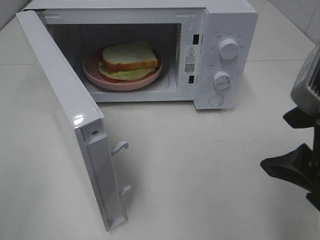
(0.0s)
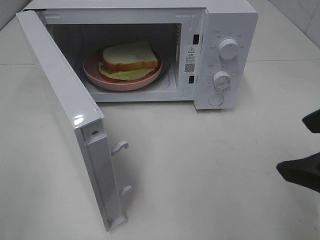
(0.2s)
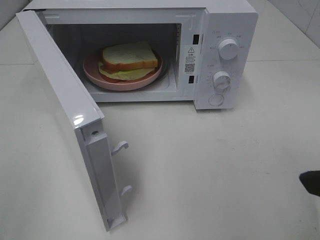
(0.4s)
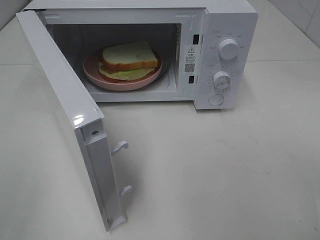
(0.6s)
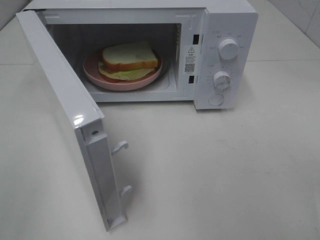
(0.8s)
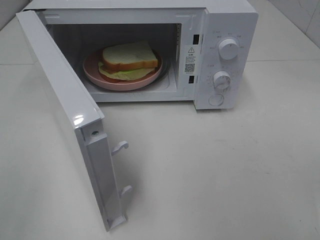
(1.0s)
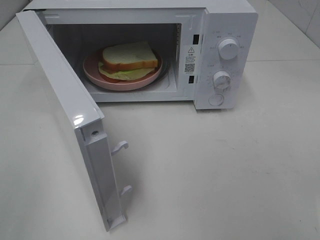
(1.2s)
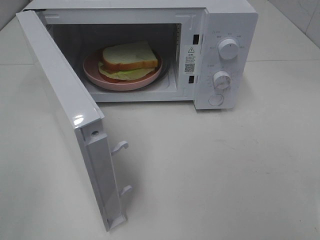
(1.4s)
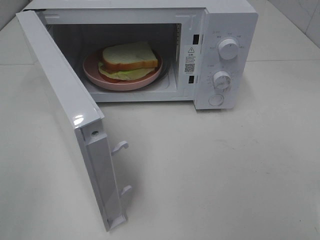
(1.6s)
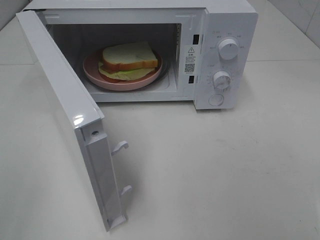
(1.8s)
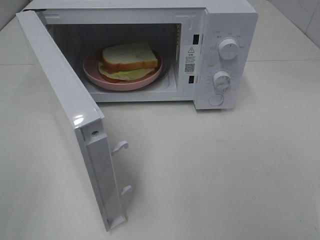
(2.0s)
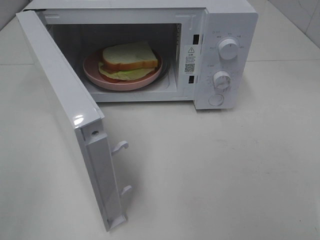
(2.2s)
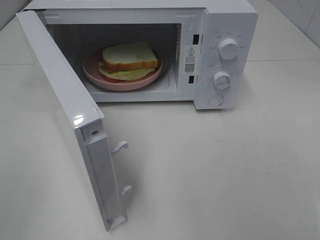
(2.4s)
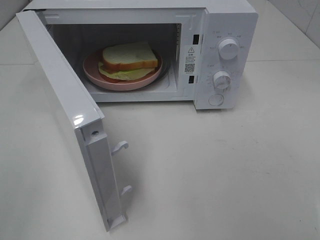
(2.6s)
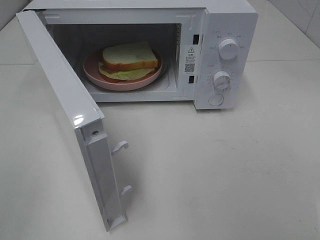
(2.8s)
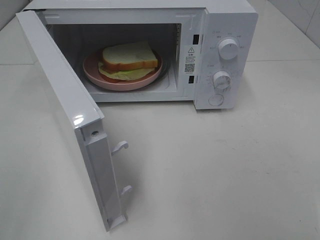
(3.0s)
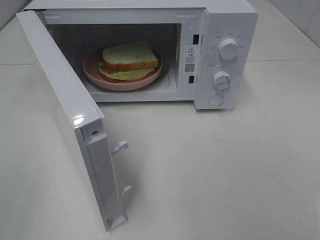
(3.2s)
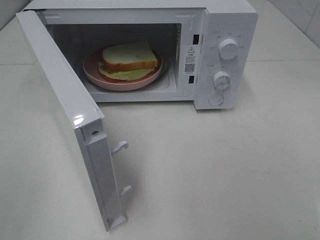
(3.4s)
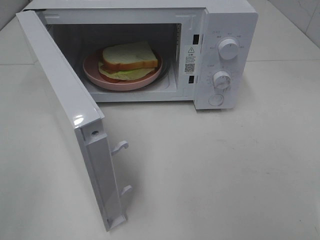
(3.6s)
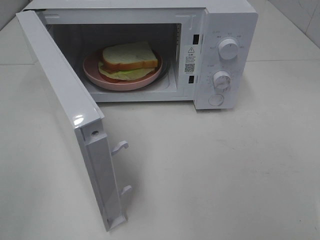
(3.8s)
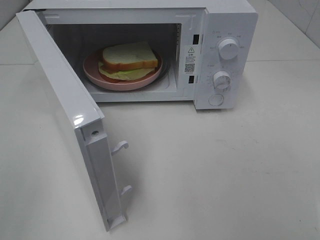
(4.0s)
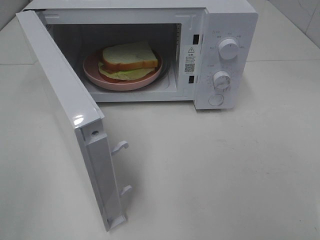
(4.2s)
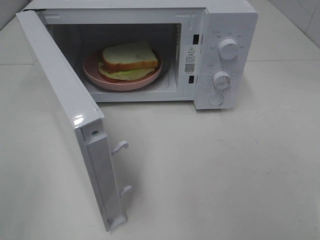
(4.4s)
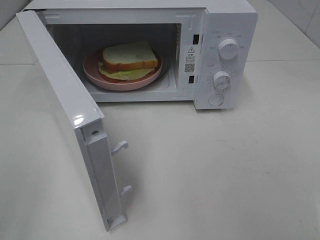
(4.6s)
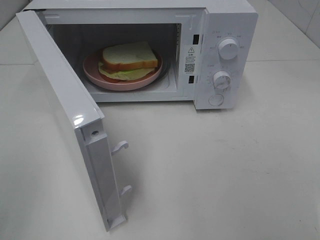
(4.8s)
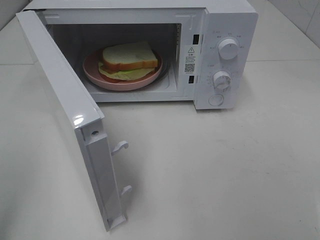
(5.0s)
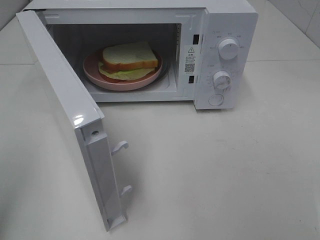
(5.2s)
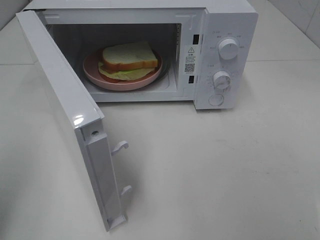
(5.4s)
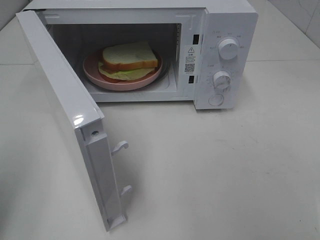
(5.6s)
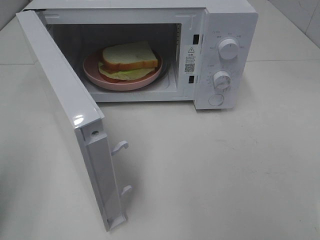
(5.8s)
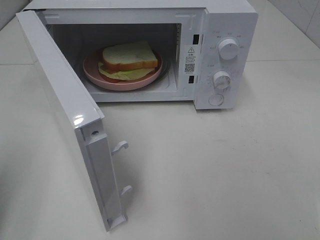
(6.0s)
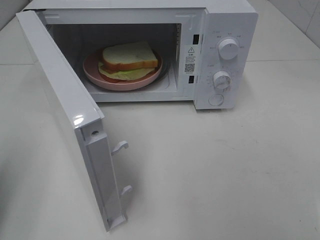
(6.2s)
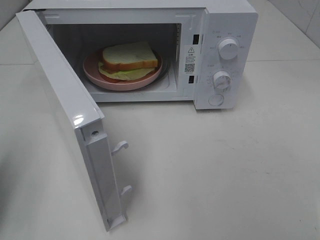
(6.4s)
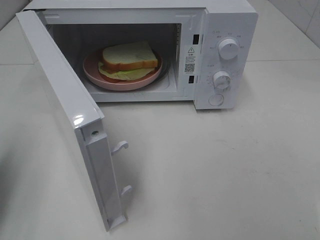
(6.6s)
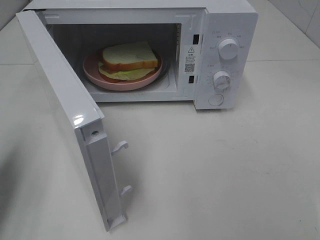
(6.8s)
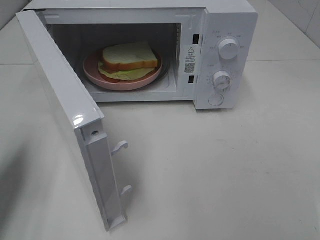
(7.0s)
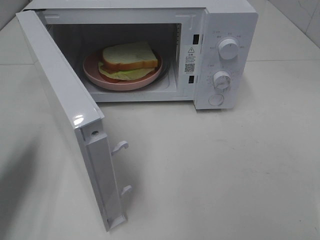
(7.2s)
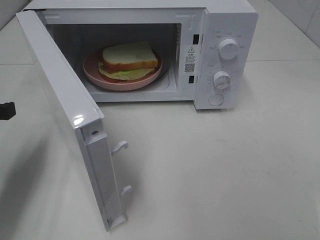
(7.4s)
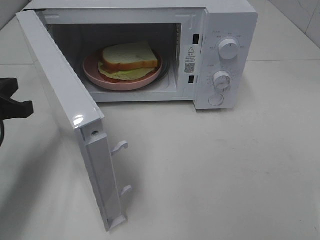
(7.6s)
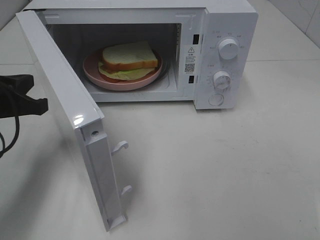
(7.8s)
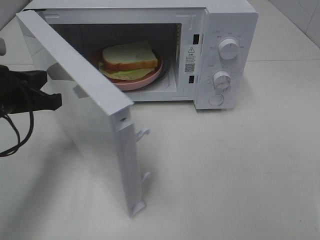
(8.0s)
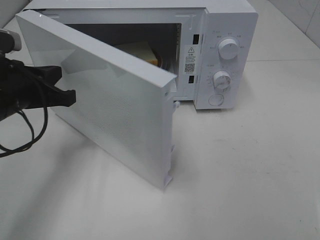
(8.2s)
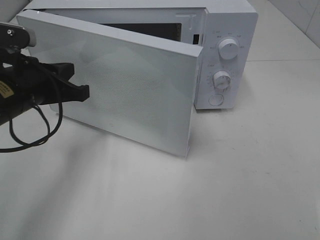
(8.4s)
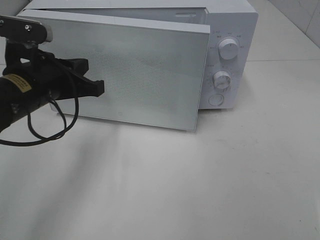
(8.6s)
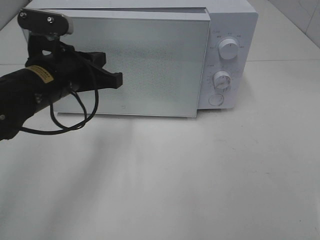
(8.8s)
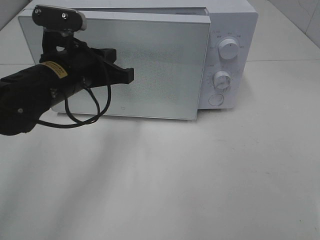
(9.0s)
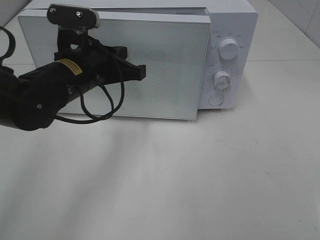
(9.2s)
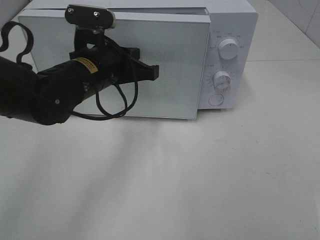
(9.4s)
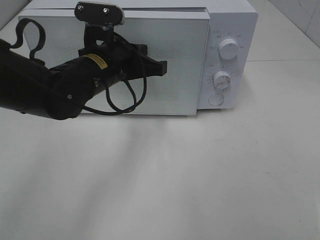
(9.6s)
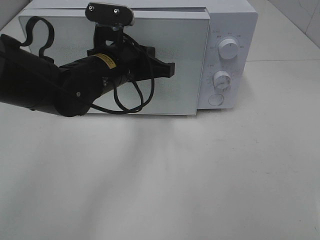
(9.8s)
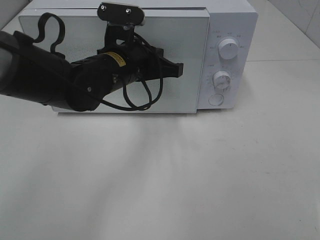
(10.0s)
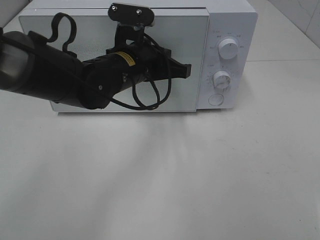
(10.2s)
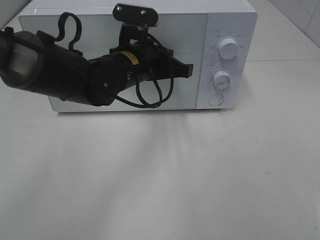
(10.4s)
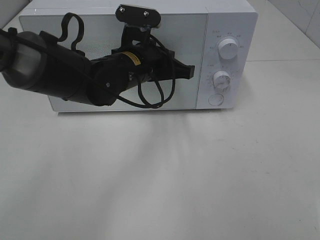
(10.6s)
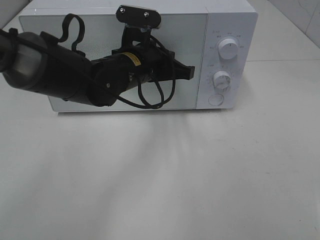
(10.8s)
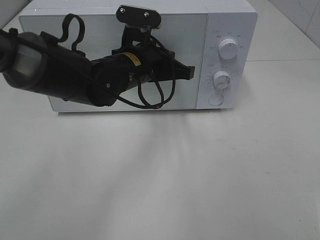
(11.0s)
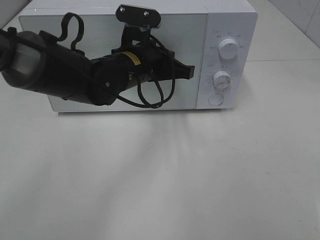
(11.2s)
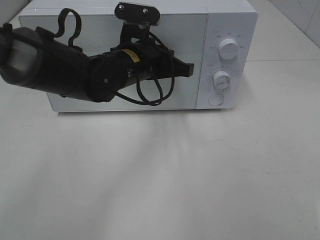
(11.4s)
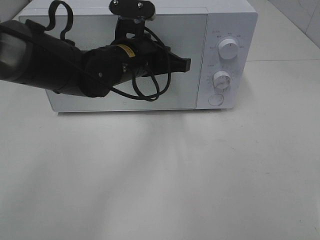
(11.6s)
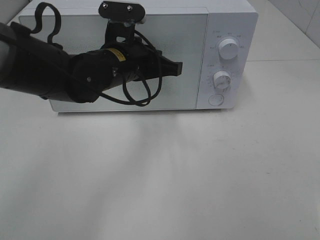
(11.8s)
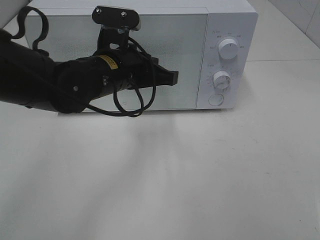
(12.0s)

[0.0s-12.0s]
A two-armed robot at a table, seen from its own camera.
Task of the whole recording: Heat Sandwich.
Step, 0.0s to 11.8s: Left hand: close the microwave door.
0.0s to 1.6s: The right gripper heads backward and to the right, covering about 15 cm.
3.0s to 4.4s: Both grippers stay about where they are.
6.0s to 7.6s: The left gripper is displaced forward, to the right and downward by about 15 cm.
7.6s to 9.0s: The left gripper goes about 15 cm to the right and forward.
9.0s to 10.4s: The left gripper is displaced to the right by approximately 10 cm.
10.4s to 12.0s: The grippers move only a little.

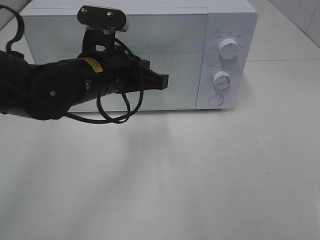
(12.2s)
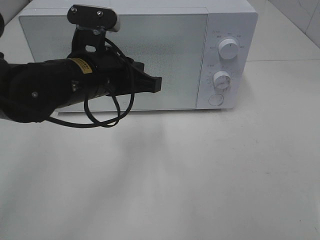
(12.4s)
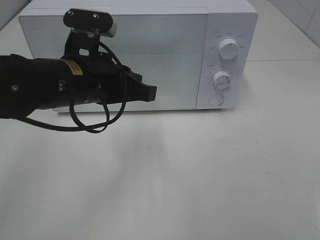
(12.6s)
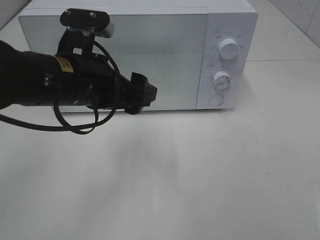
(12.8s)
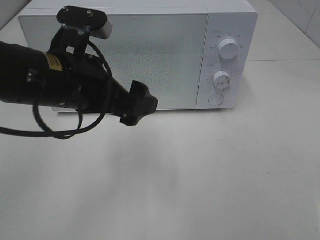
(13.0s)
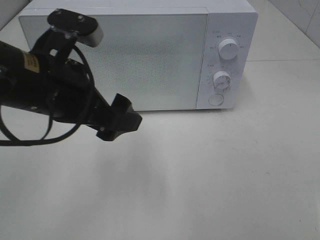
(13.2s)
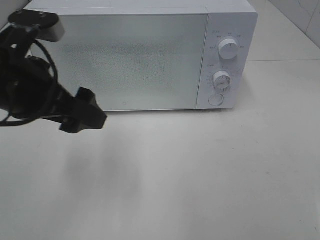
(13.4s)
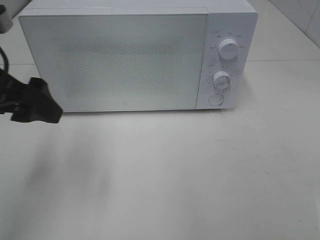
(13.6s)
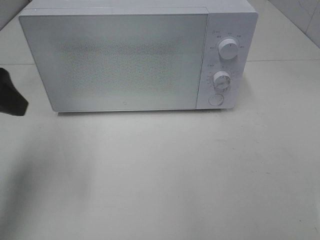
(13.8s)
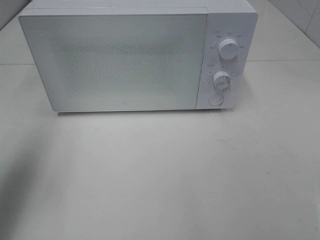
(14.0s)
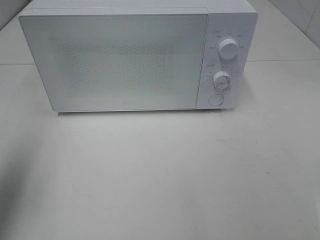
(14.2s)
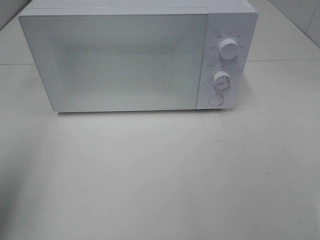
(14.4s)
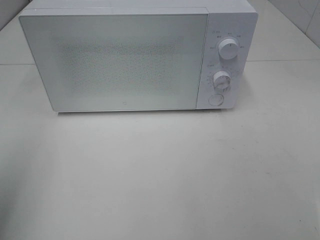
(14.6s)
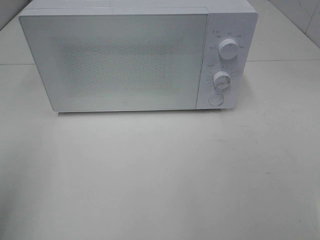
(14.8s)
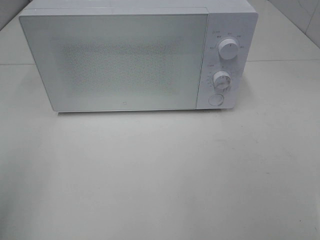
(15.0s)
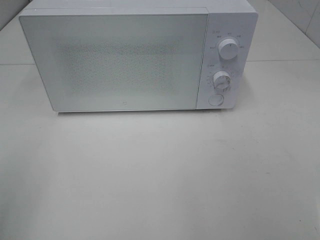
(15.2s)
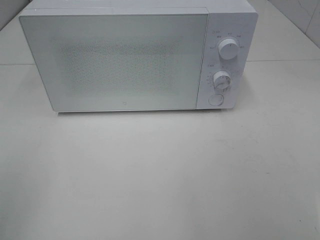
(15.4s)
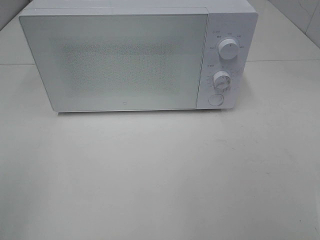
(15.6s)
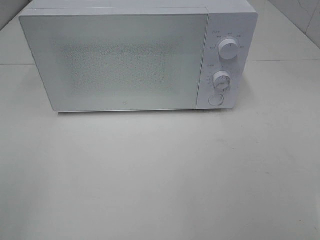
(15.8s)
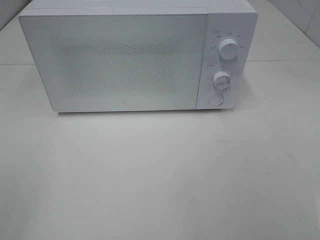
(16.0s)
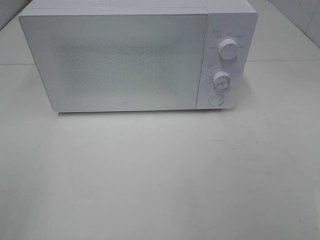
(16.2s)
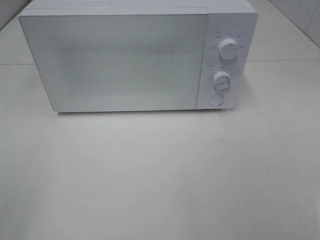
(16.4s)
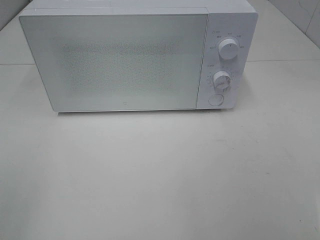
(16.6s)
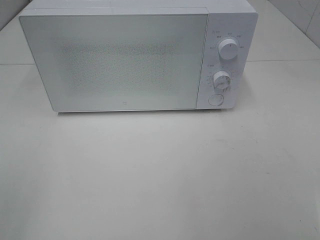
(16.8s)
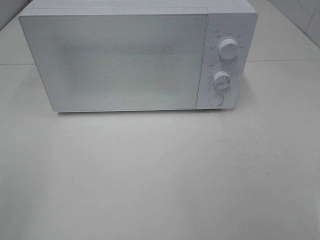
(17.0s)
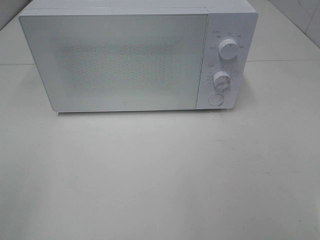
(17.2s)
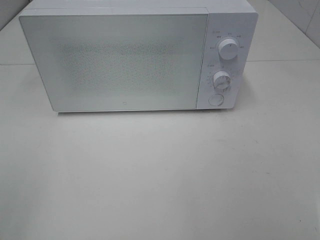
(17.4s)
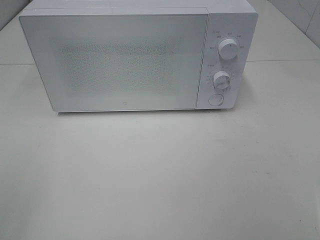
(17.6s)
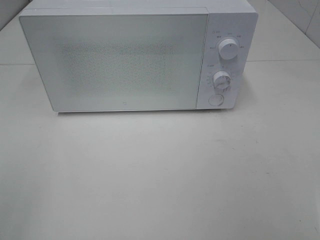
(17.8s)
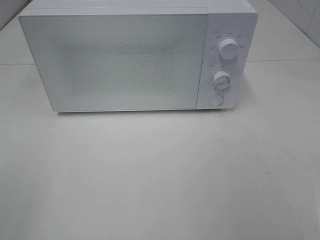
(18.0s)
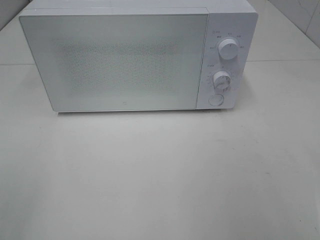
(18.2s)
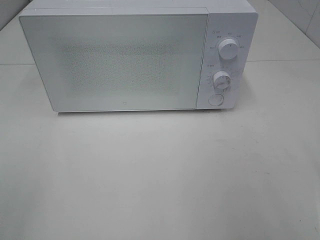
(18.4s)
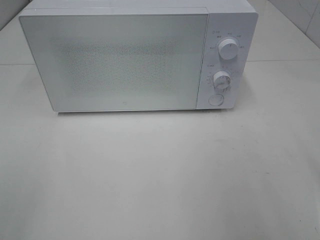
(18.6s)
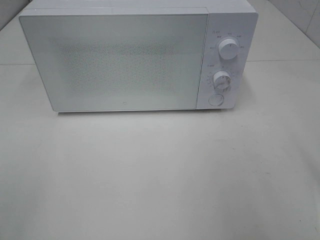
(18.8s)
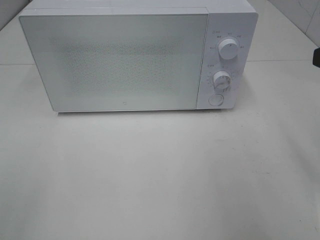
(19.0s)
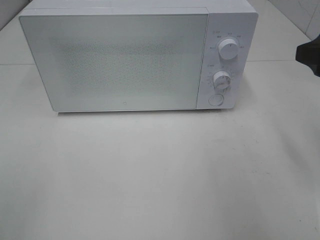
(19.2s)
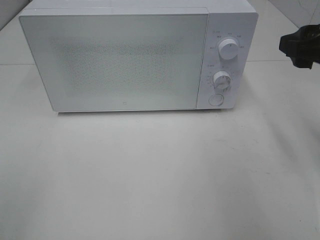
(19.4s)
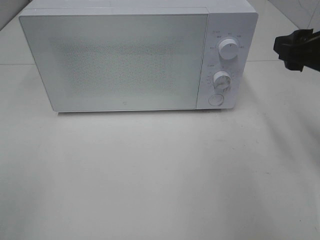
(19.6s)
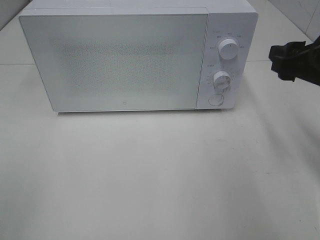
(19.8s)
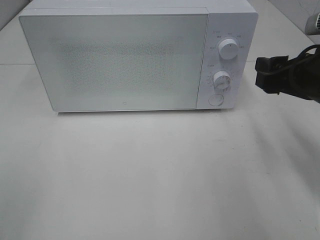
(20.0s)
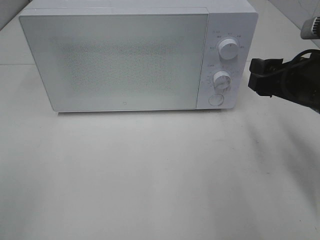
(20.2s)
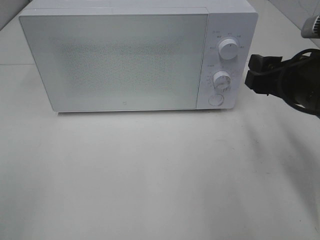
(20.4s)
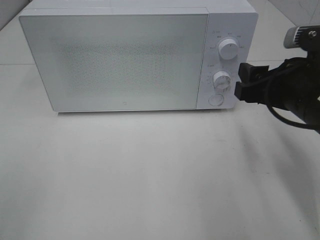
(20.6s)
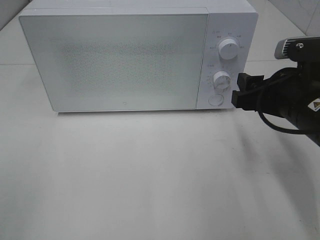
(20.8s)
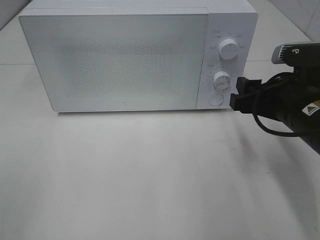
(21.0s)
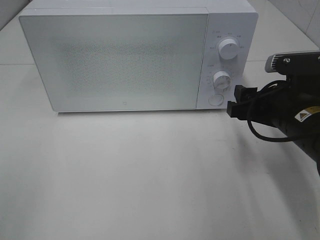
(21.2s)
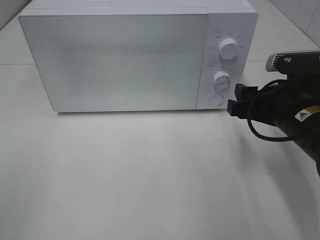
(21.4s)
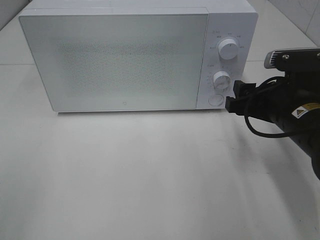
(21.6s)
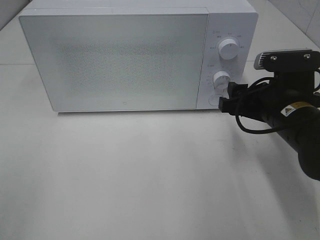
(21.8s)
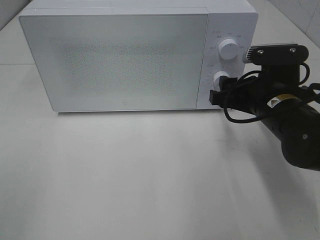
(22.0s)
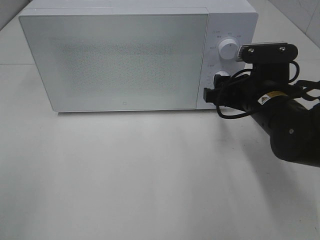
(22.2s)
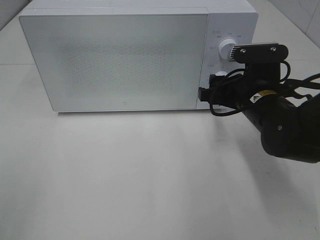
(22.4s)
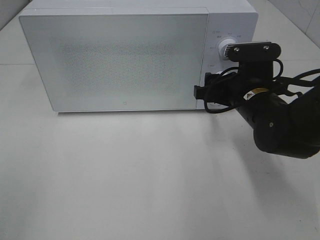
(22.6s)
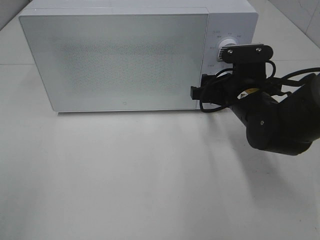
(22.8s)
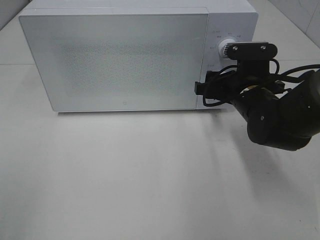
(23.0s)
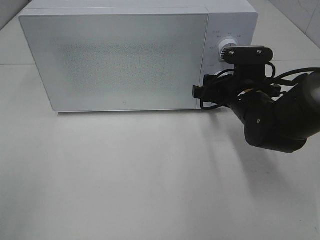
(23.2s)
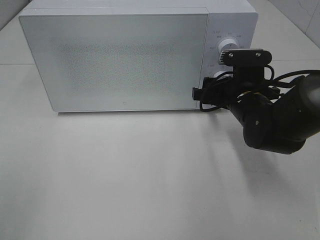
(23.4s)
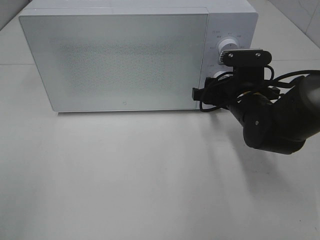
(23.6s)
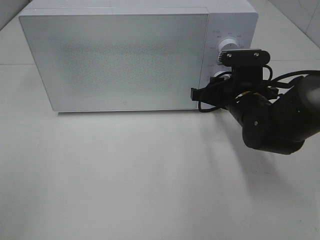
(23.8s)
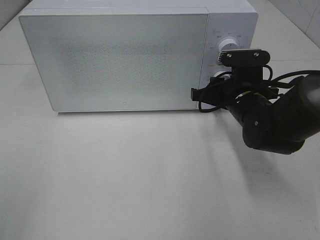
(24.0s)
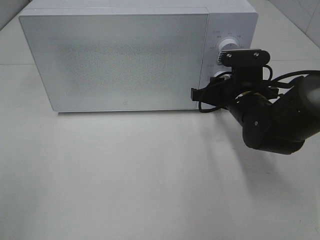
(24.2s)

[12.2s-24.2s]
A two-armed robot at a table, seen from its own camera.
Task of the whole recording: Heat Sandwich.
12.2s to 13.8s: The left gripper travels to the left and upward by some 20 cm, and opens.
13.8s to 15.2s: The left gripper shifts about 15 cm backward.
18.2s to 19.8s: The right gripper travels forward and downward by some 20 cm.
19.8s to 21.2s: The right gripper travels downward and to the left by some 10 cm.
21.2s to 22.6s: The right gripper travels forward by approximately 5 cm.
22.6s to 24.2s: The right gripper closes its fingers.
